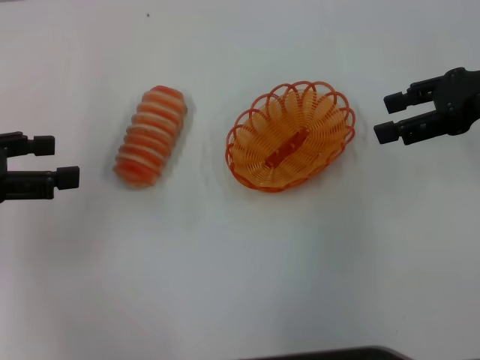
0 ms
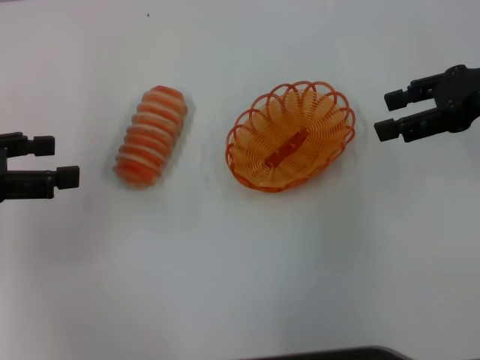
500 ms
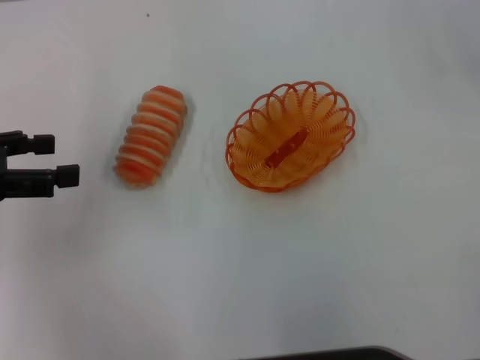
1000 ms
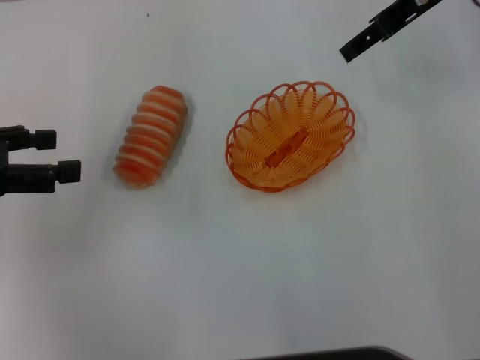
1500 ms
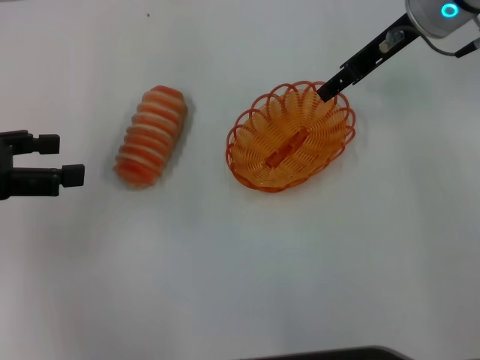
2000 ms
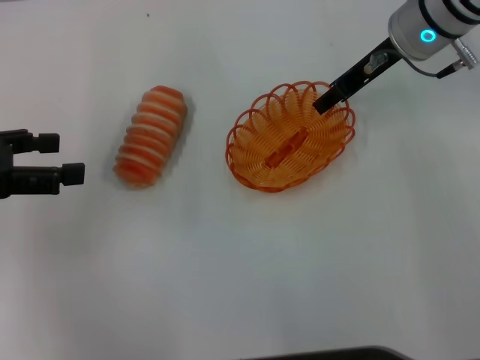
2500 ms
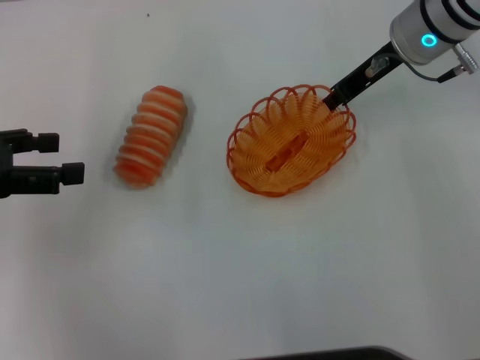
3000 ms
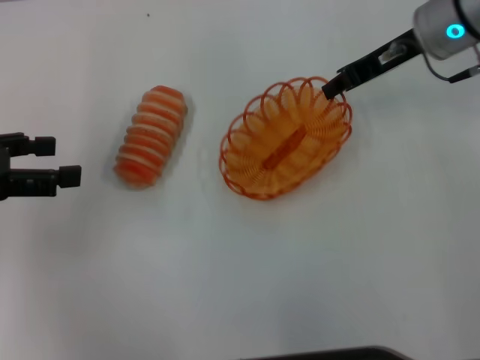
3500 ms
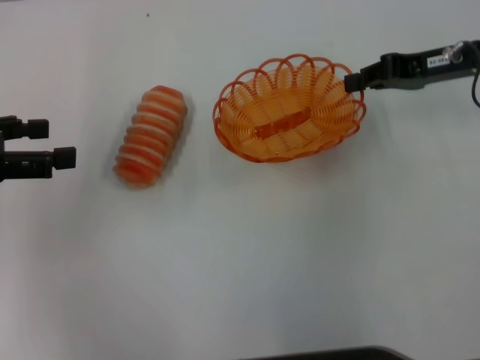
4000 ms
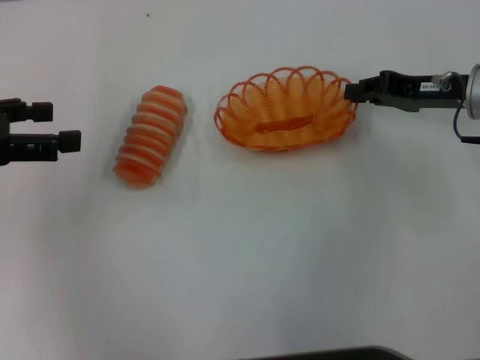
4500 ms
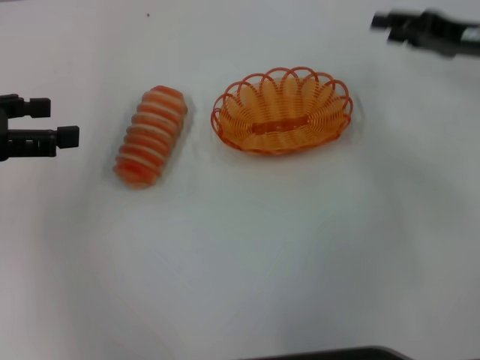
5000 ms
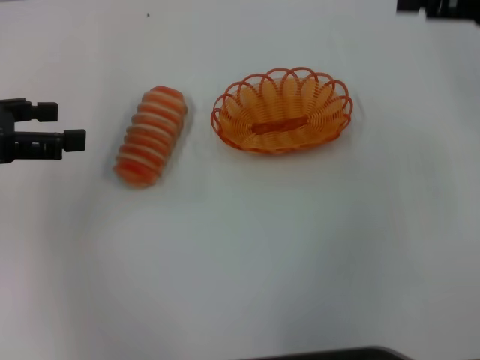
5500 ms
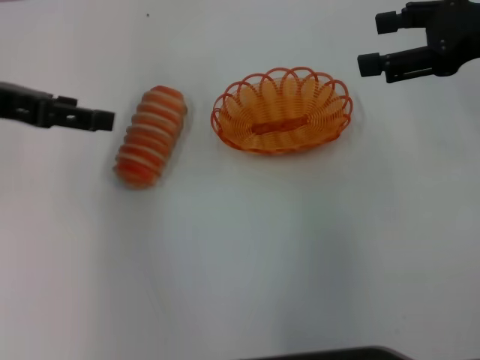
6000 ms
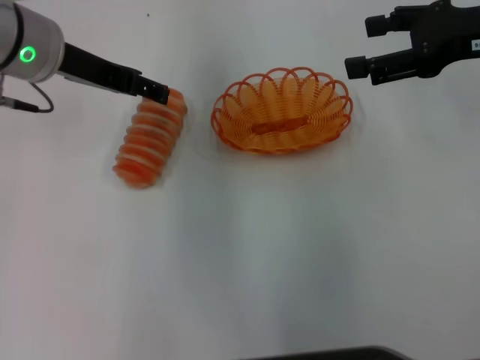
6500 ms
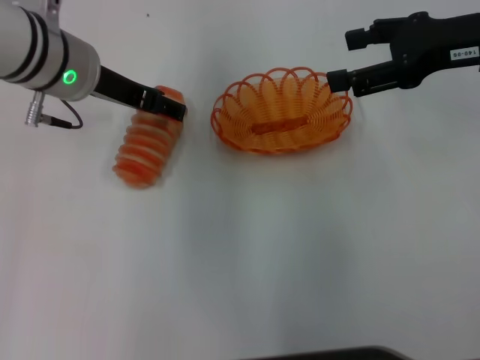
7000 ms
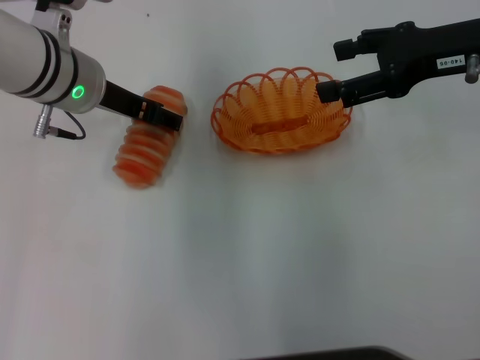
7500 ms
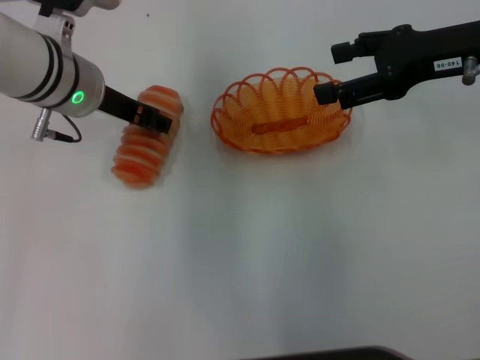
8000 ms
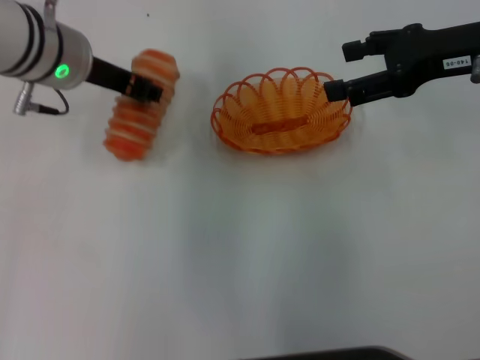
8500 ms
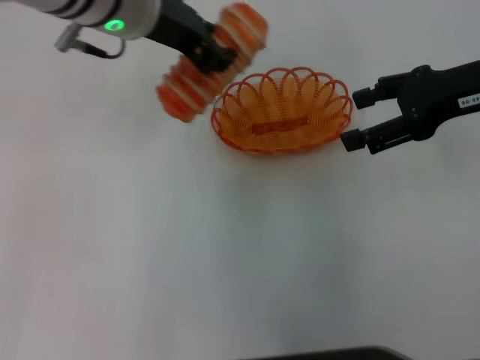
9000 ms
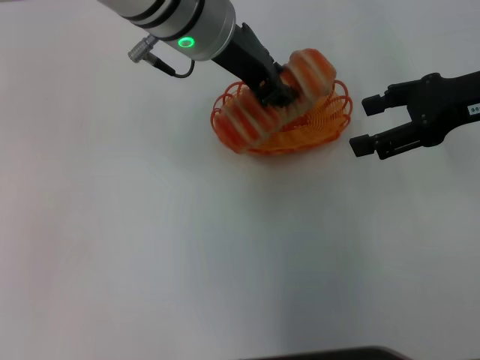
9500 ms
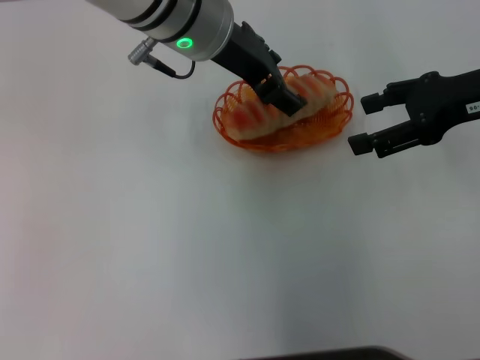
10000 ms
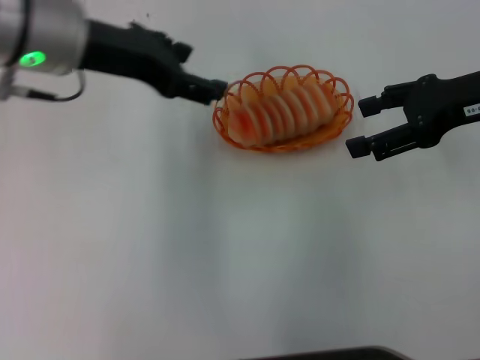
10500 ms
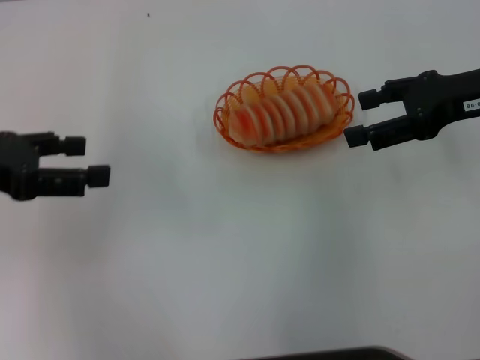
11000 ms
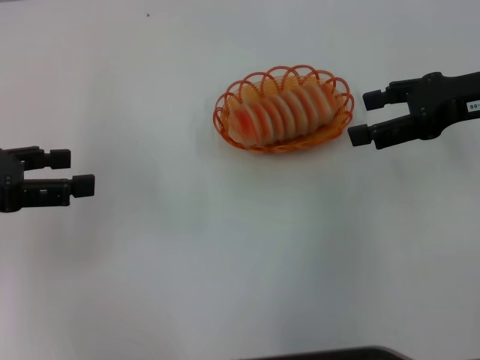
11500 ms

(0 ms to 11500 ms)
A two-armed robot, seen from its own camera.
Step, 0 ms - 3500 ms: Pick up the basket with the right gripper.
Step, 4000 ms - 4500 ms: Place the basket in the center of view with the right gripper.
Step, 5000 ms - 8500 ms: Pick up the long bread with the left gripper.
Step, 9000 ms - 10000 ms: Place the long bread into the basket with the left gripper.
0 ms - 2000 ms: The right gripper goes approximately 15 cm to the left and forward.
2000 ms - 4000 ms: The right gripper travels to the right and downward by about 10 cm, and closes.
4000 ms - 6000 ms: The right gripper goes approximately 10 cm upward, and opens its fingers, while the left gripper goes approximately 5 cm to the right.
6000 ms - 7500 ms: The left gripper goes about 15 cm to the right and downward.
7500 ms - 9500 ms: The left gripper heads to the right and upward, covering approximately 15 cm, and closes its fingers.
9500 ms - 11500 ms: The left gripper moves to the left, some 30 cm, and opens.

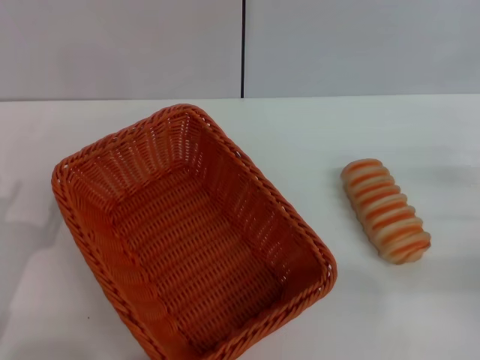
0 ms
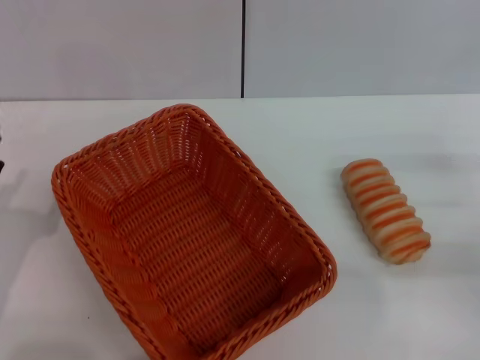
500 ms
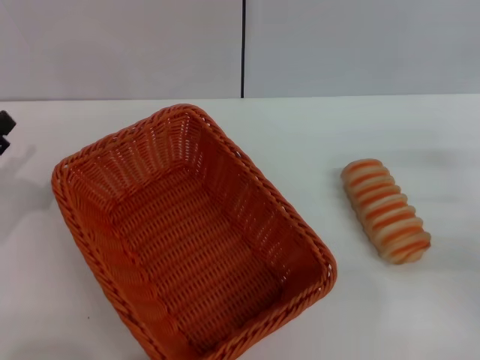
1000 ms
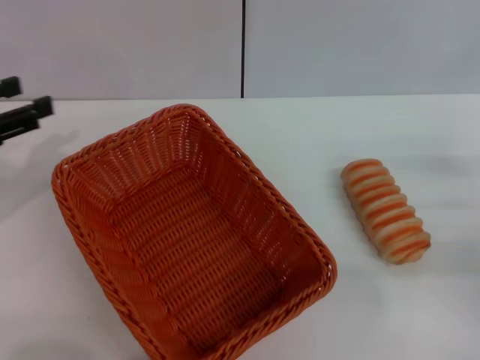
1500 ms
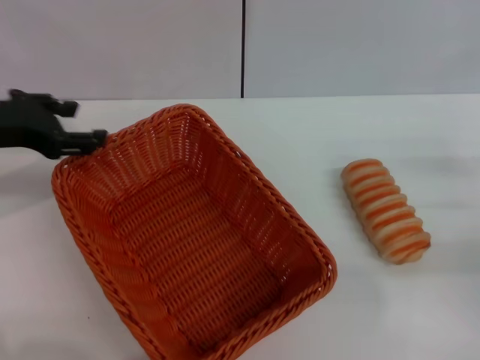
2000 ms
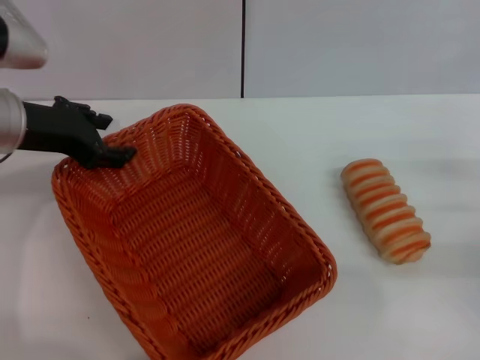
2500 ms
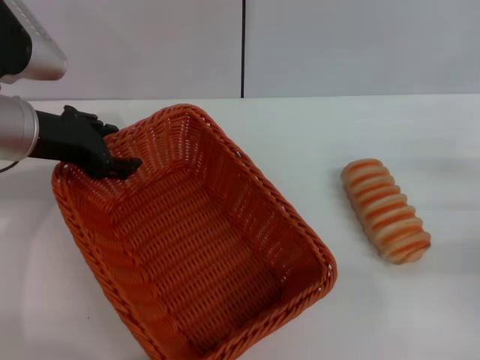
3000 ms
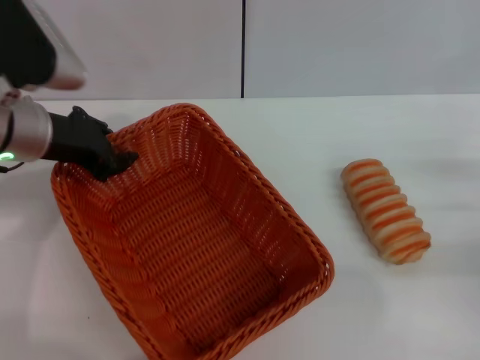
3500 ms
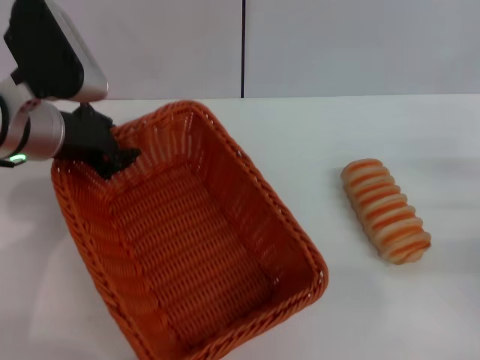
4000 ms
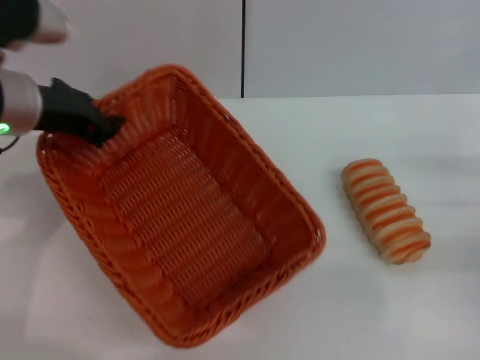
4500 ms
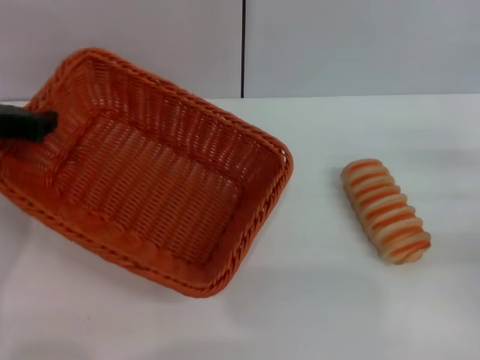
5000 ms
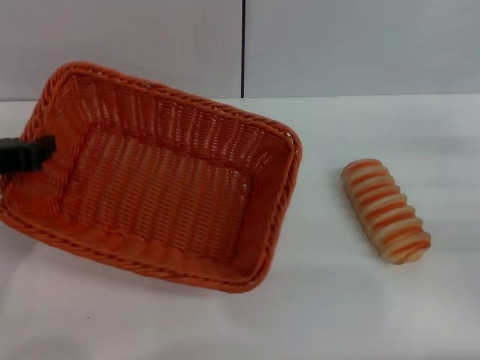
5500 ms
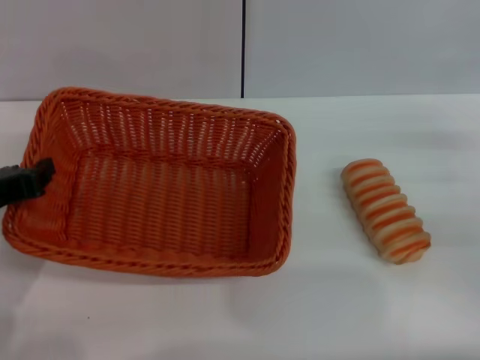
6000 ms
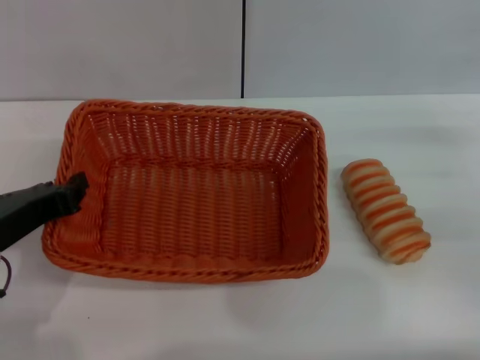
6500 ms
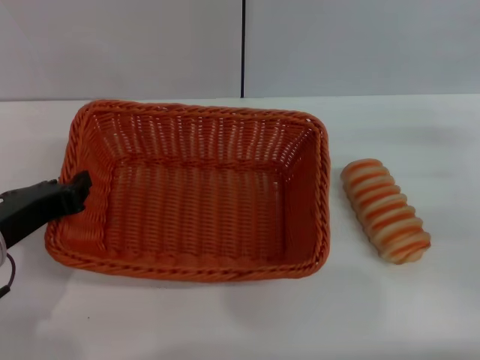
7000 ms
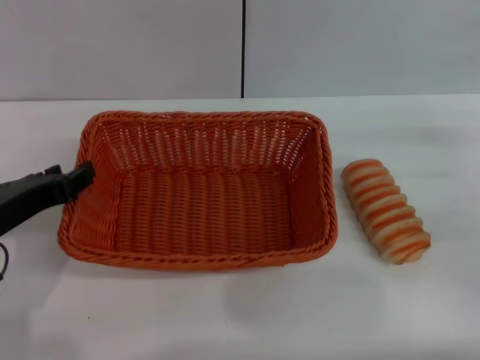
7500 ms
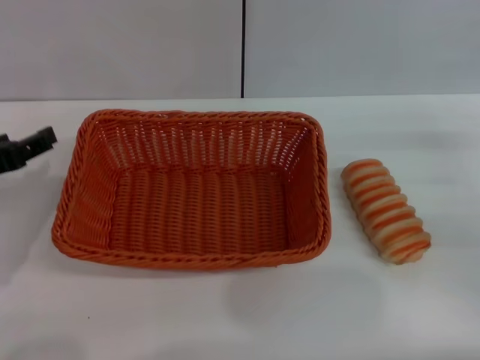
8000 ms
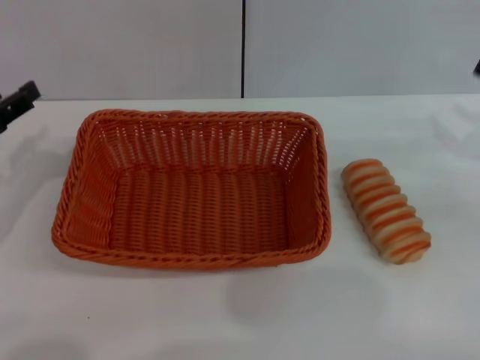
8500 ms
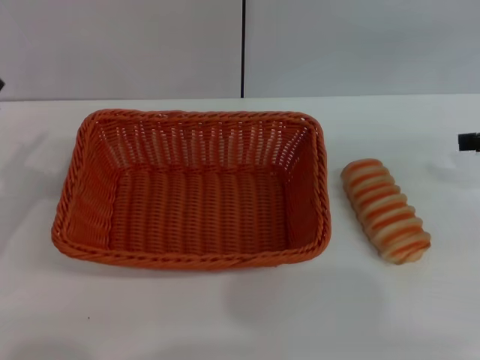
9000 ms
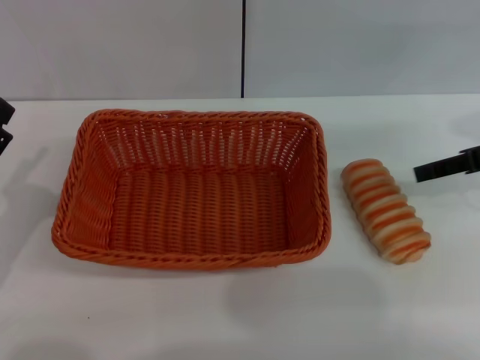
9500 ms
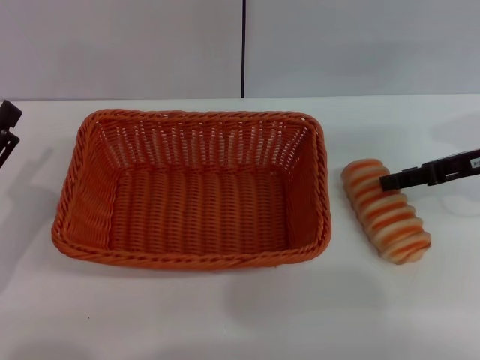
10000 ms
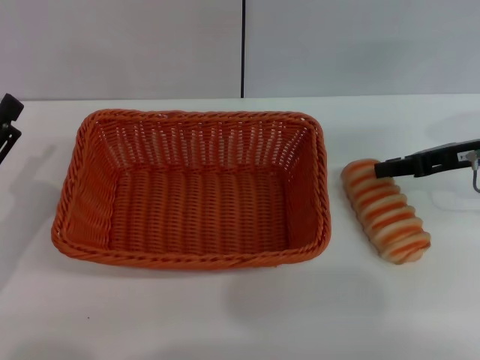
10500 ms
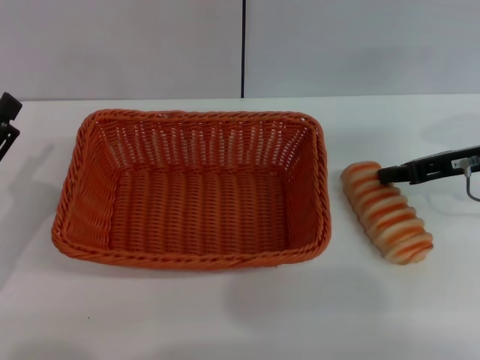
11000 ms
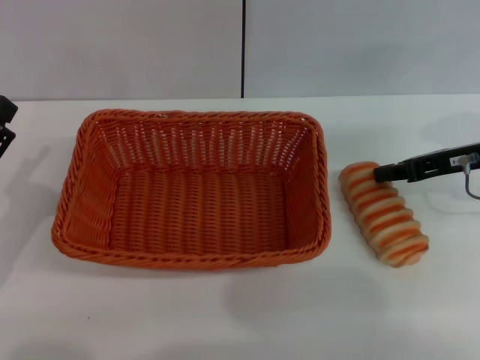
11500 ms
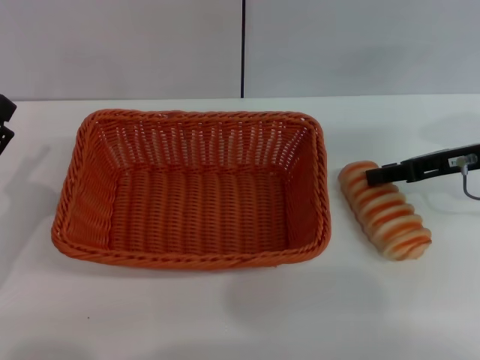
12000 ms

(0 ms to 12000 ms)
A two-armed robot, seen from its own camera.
Step, 0 ms - 4500 ms: Pick up the light basket with the left gripper.
Step, 5000 ms - 7500 ms: Place the light basket in the center of view with the left gripper.
0 ms - 2000 ms: The left gripper travels forward and upward by roughly 20 cm.
2000 ms - 4000 ms: The left gripper shifts about 10 cm to the right, and closes up.
4000 ms - 6000 ms: The left gripper heads backward and to the left, covering approximately 15 cm.
6000 ms - 8000 ms: The left gripper opens up.
8000 ms - 10000 ms: The left gripper shifts about 10 cm downward. Meanwhile the right gripper moves forward and upward, about 10 cm.
10000 ms - 12000 ms: The right gripper closes up.

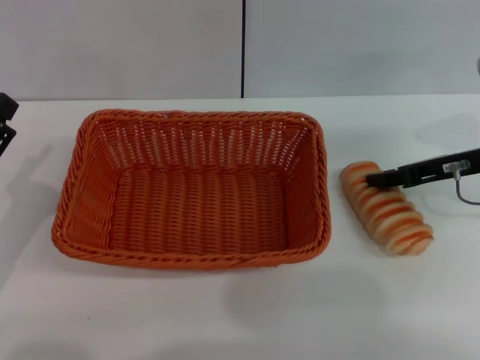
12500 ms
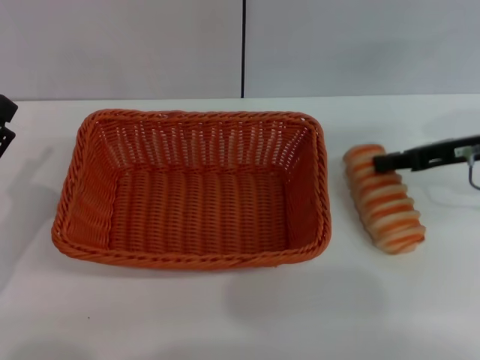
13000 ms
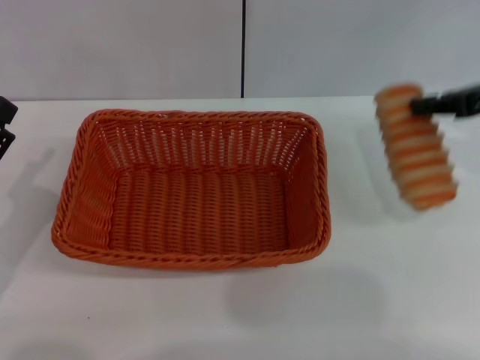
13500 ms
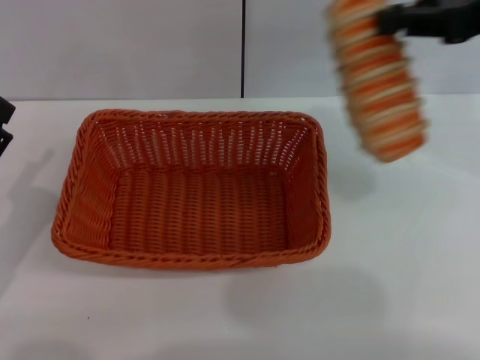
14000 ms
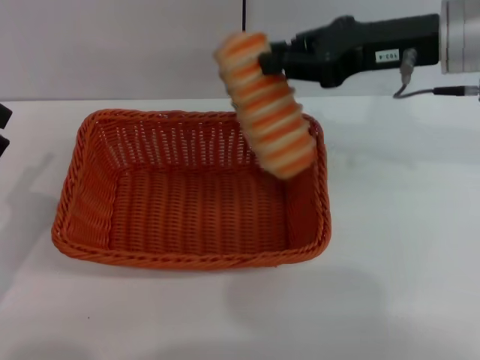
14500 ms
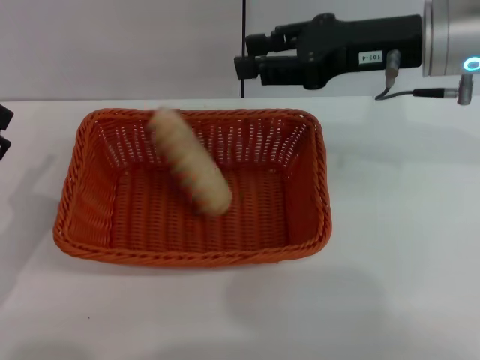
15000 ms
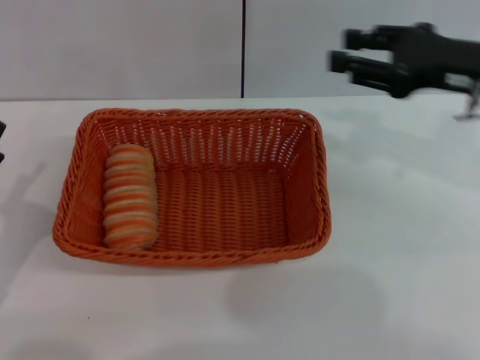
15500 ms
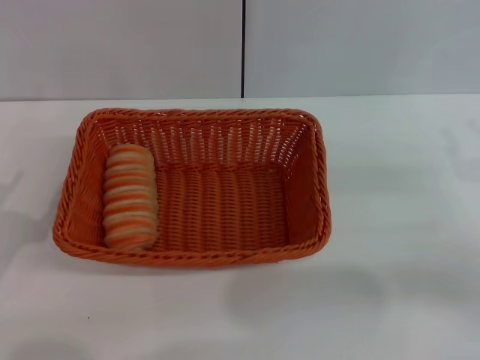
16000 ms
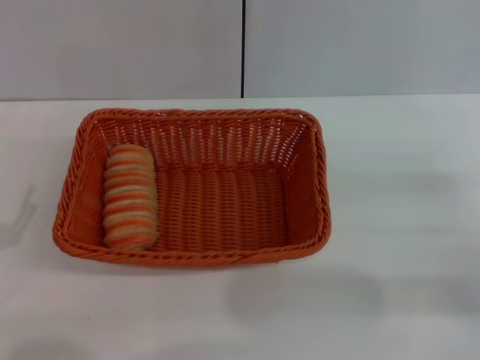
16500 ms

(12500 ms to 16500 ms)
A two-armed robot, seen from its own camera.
Step, 14000 ms - 15000 ms: Place the long bread into the light basket with the right gripper.
12500 ms - 14500 ms: The right gripper travels upward and to the left by approximately 15 cm, and closes up.
14500 ms - 16500 ms: The right gripper is displaced downward, to the right and backward by some 25 cm, and opens.
